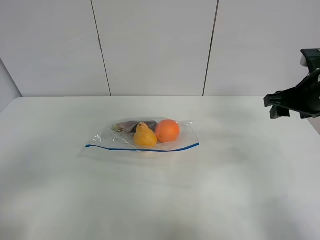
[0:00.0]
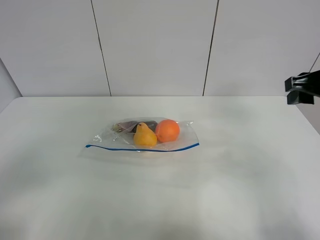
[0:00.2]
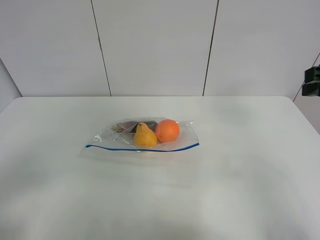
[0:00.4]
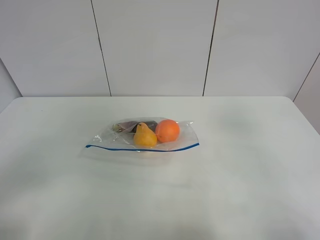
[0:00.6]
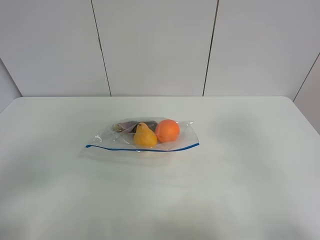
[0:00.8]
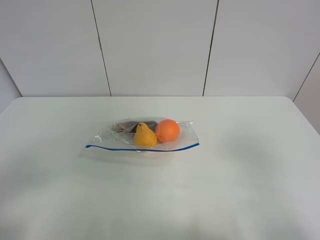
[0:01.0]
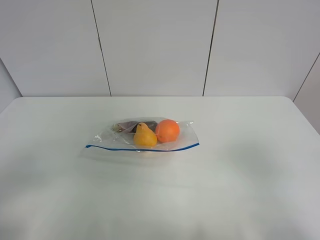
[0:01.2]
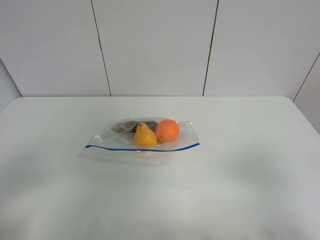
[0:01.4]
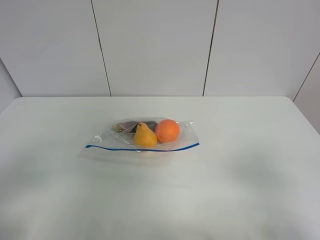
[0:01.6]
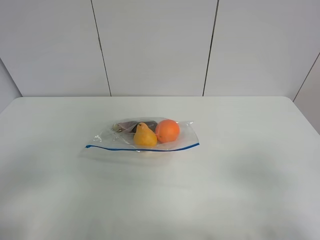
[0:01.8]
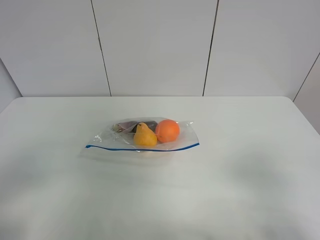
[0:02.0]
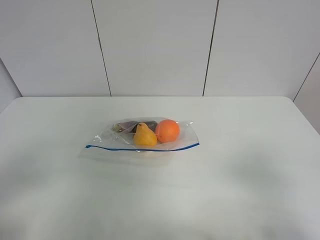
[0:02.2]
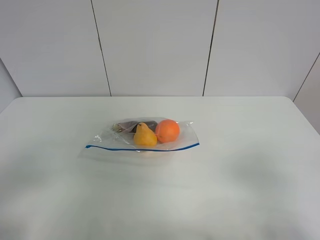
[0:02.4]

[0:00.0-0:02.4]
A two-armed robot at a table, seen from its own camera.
0:00.0 to 0:01.2: The right gripper moves backward, about 30 cm.
